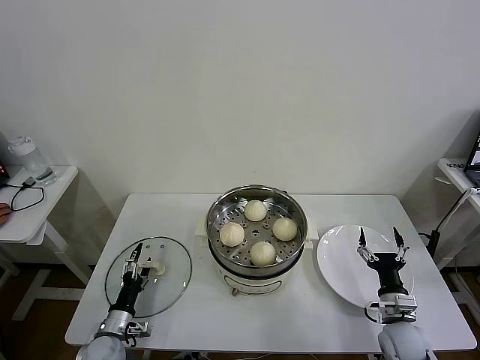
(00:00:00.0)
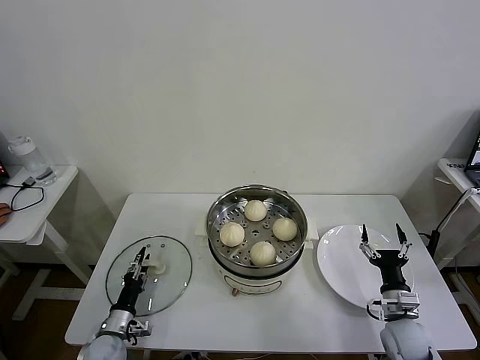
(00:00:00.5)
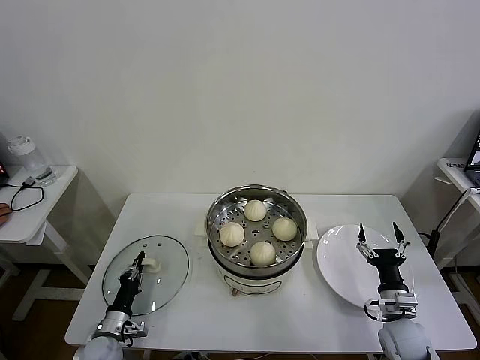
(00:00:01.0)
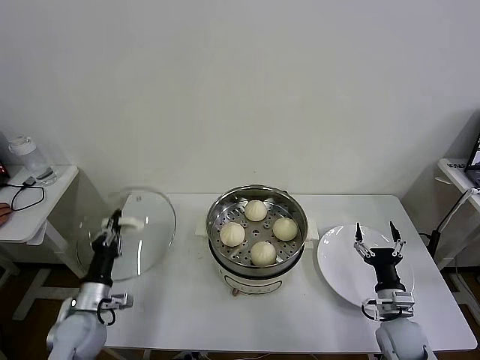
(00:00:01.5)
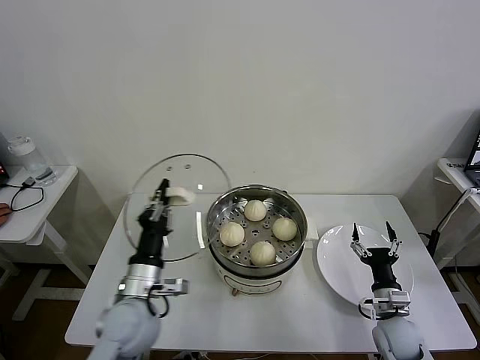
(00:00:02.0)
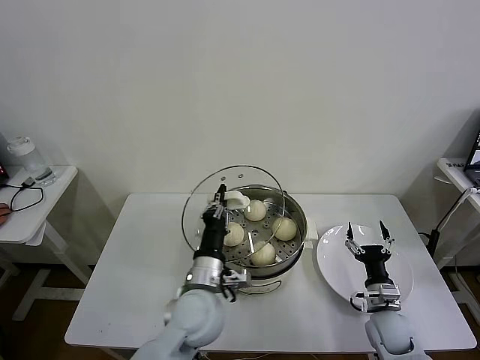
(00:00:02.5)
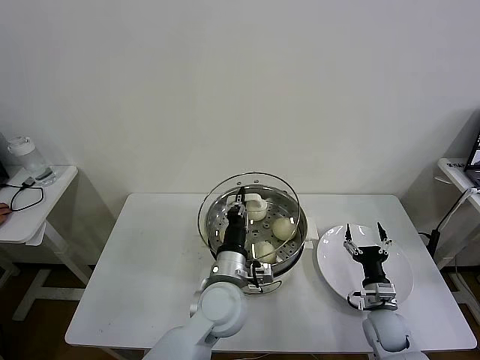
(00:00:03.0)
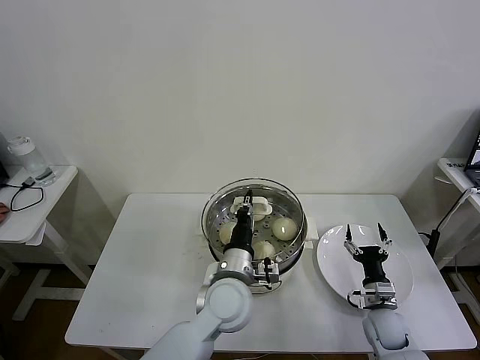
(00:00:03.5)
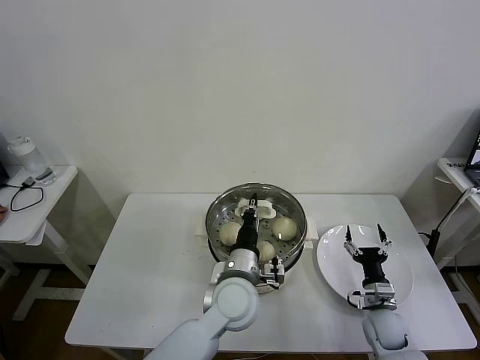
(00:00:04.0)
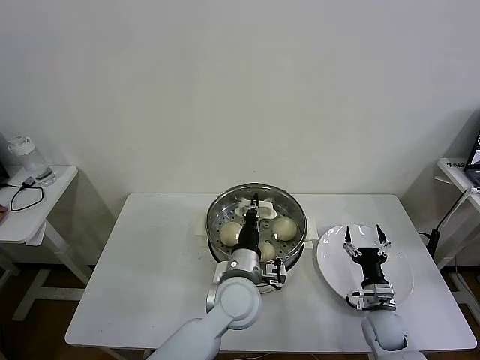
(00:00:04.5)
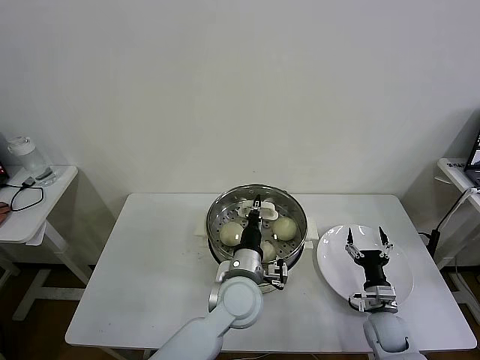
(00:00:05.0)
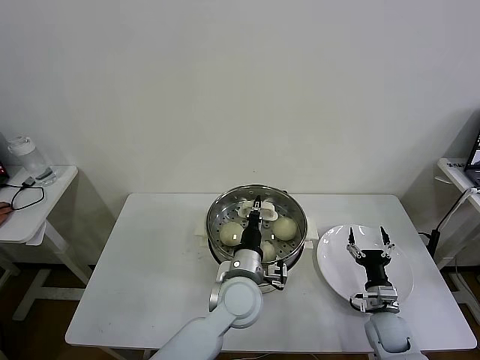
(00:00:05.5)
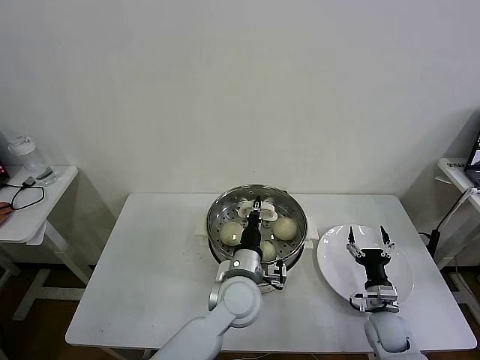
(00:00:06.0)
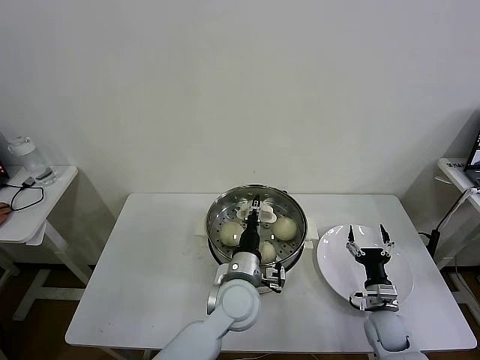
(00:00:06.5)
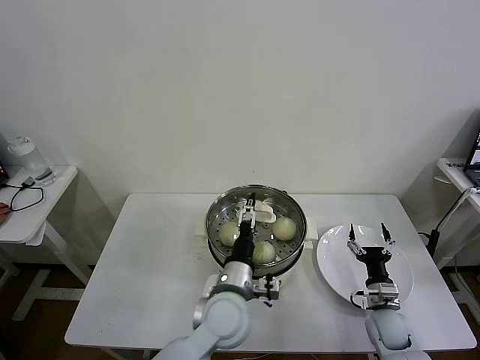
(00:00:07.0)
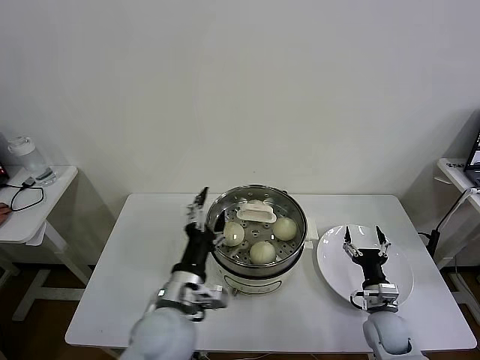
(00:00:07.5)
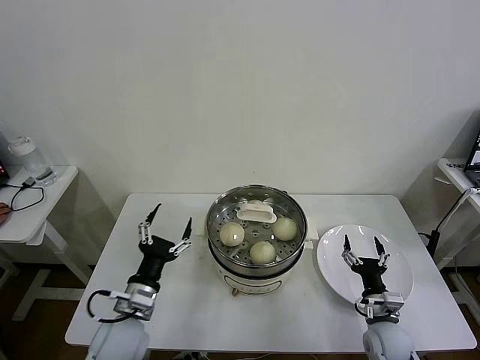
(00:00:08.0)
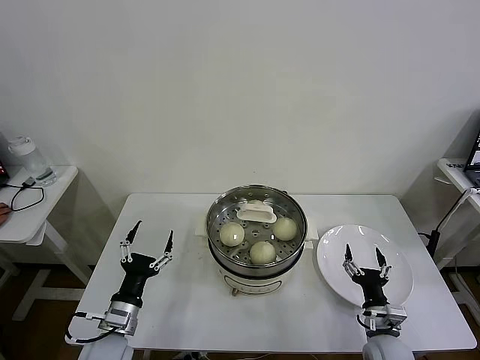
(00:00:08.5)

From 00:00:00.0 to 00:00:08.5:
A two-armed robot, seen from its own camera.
Task of the whole recording: take steamed baozi put them in steamer then cover it.
Step, from 00:00:01.0 to 00:00:06.5: Place the pot lid on the steamer with left gripper.
From 00:00:00.0 to 00:00:02.0: The left gripper moves upward and to the right, some 25 cm, and closes.
From 00:00:02.0 to 00:00:04.0: The left gripper moves to the right, some 20 cm.
From 00:00:04.0 to 00:00:06.5: The grippers make only small movements.
From 00:00:06.5 to 00:00:08.5: The right gripper moves backward, roughly 5 cm; the left gripper shifts approximately 25 cm to the left, and opens.
